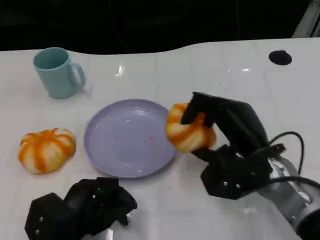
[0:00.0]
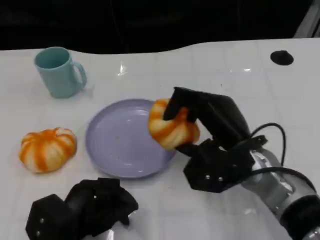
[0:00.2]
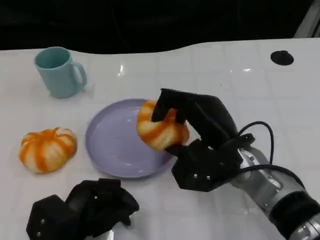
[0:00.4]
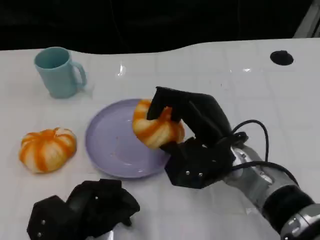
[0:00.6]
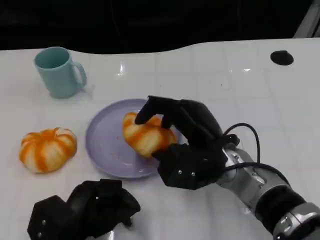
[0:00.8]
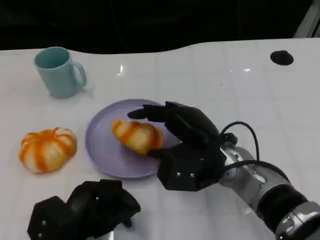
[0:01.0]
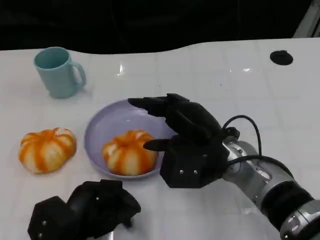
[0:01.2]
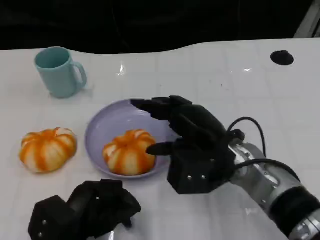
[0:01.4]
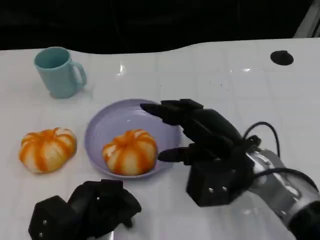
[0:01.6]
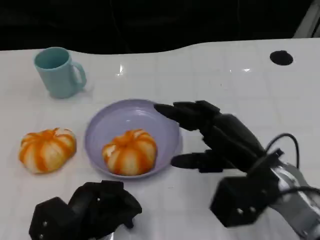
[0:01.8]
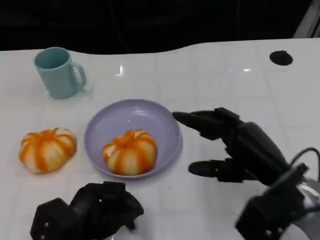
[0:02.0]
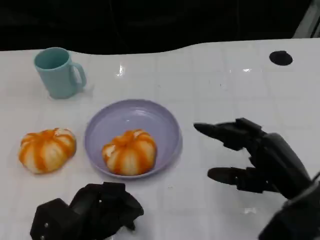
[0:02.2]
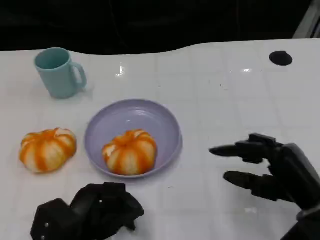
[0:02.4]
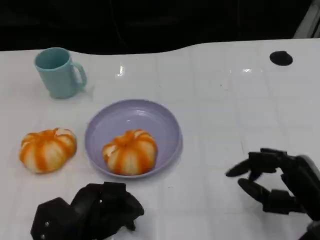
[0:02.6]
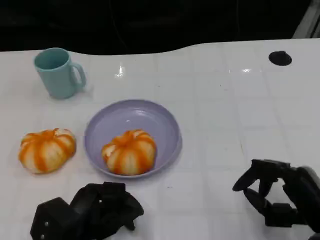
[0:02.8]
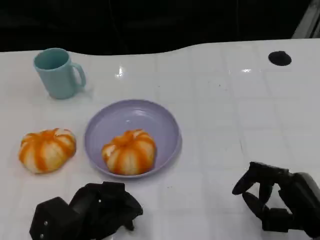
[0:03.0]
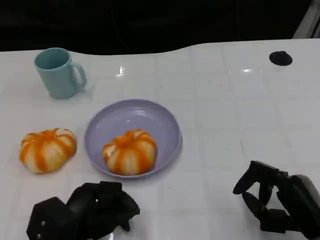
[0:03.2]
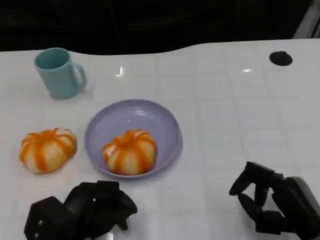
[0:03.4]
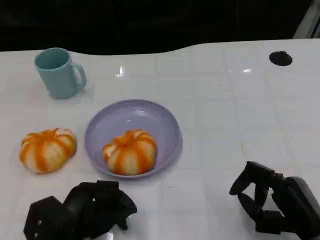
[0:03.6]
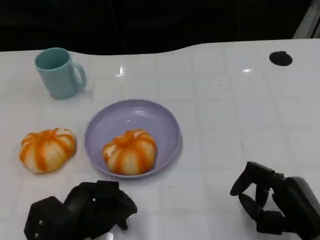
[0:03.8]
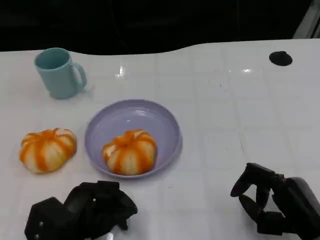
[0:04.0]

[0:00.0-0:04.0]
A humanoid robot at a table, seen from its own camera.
Task of the whole recording: Grasp the bread from the table and place it into the plate.
0:01.4 to 0:02.6: The right hand goes some 15 cm to the right and backward.
0:02.6 to 0:04.0: There are only small adjustments of the hands.

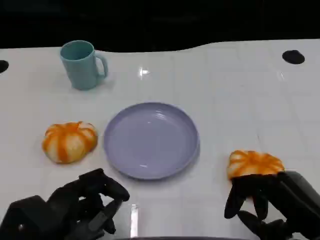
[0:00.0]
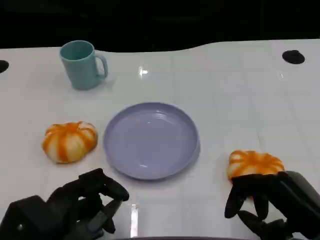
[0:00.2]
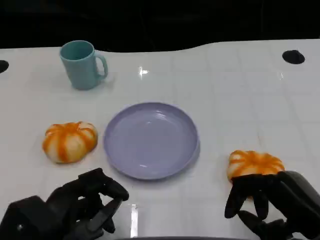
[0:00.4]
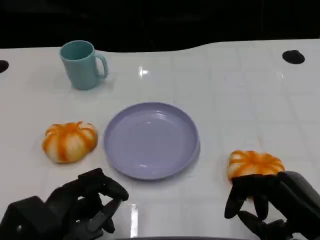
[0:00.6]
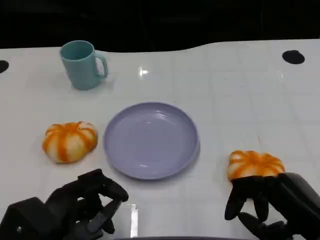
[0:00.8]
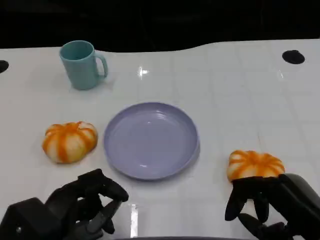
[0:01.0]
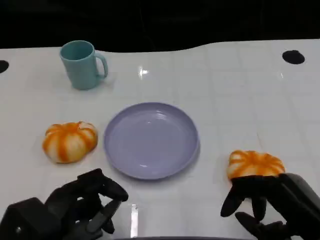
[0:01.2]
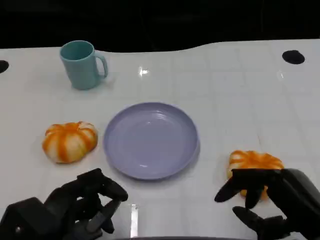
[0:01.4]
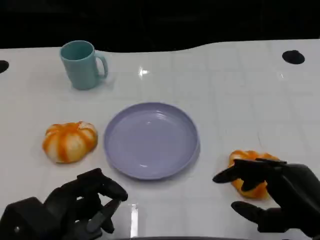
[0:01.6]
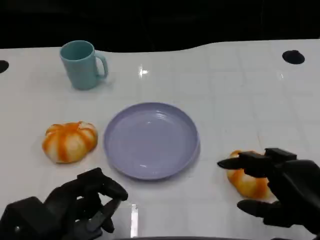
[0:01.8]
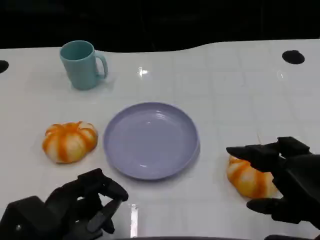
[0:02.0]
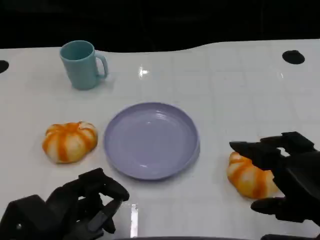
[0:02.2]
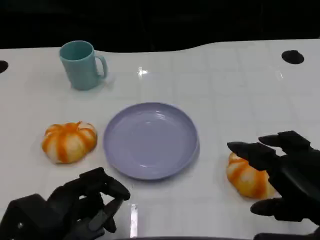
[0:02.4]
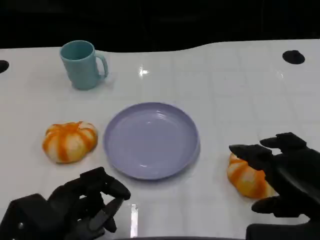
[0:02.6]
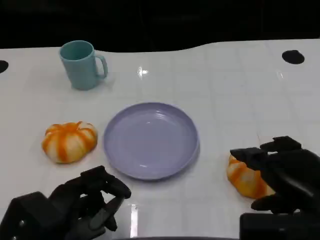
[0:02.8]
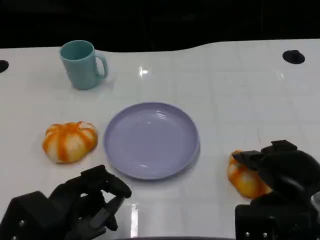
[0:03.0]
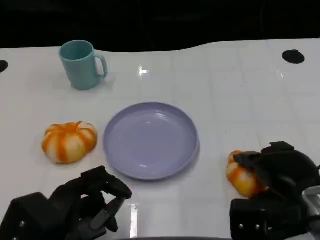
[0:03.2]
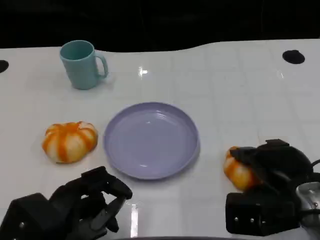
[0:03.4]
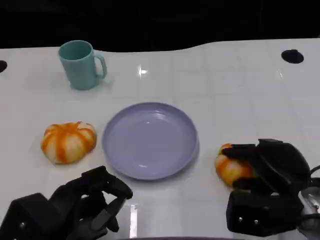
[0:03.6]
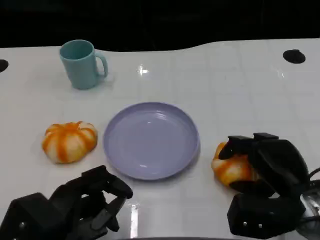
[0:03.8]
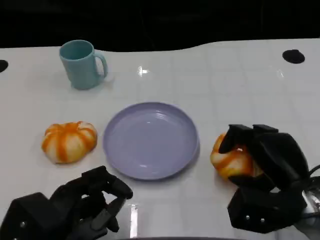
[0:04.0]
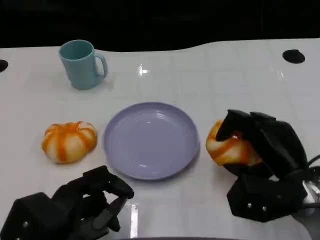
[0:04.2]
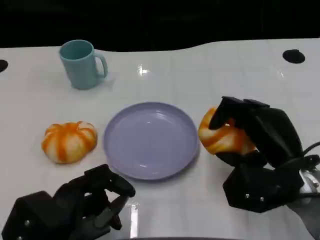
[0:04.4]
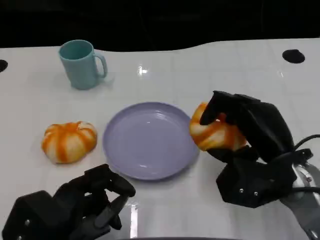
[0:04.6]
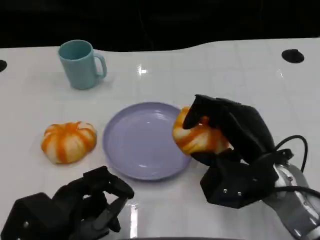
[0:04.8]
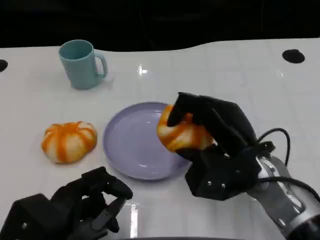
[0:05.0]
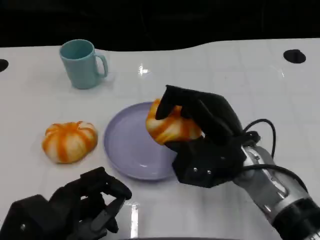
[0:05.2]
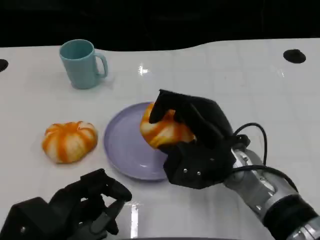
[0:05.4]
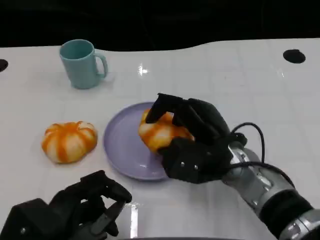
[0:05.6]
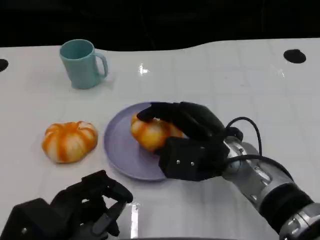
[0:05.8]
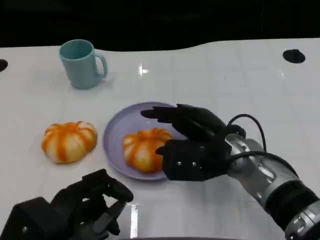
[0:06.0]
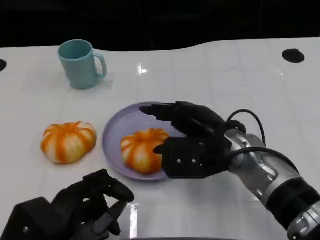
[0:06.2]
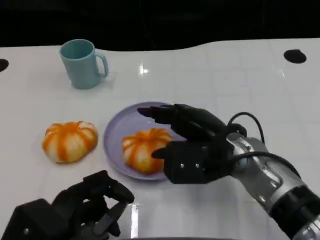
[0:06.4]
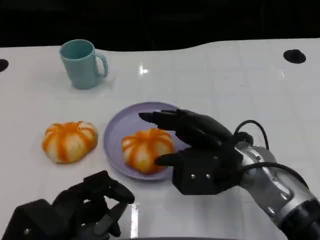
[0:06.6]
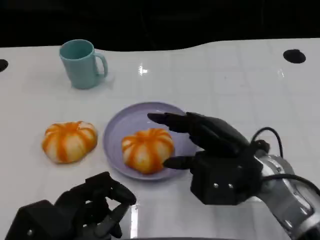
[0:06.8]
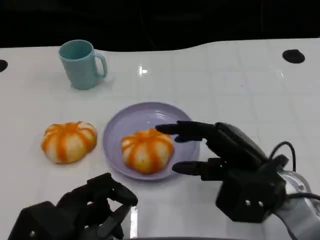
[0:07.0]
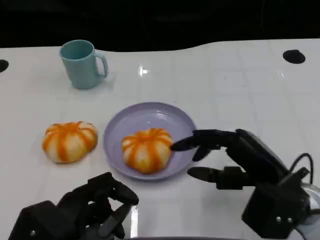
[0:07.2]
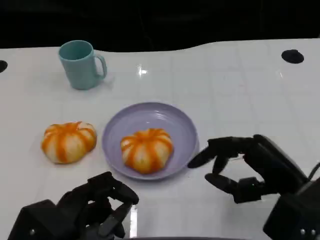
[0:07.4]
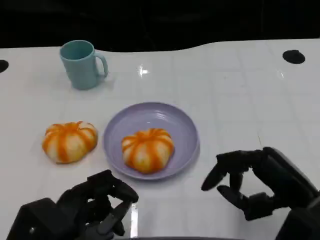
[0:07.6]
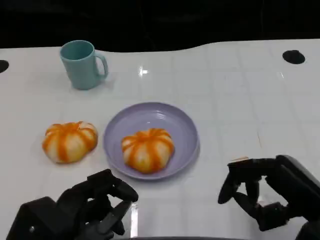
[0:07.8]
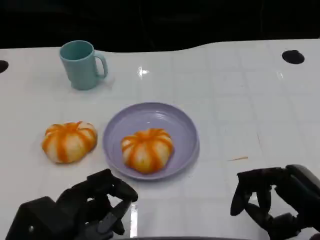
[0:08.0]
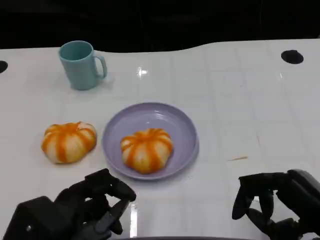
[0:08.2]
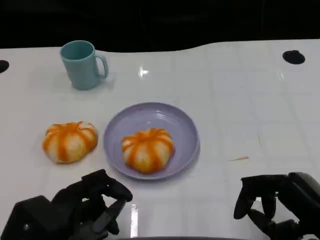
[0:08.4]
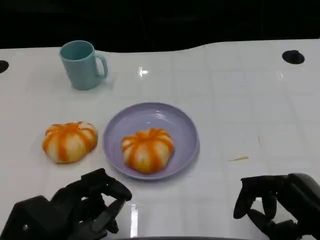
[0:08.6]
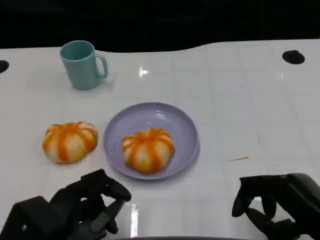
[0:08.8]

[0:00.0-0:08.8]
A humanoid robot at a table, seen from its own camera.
Task of the whole recording: Grasp the bread from the table and place it into the plate.
0:00.0 to 0:01.4: The hands stay close to where they were, moving slightly.
0:01.4 to 0:03.0: The right hand goes approximately 5 cm forward.
0:03.0 to 0:04.4: The right hand changes place by about 5 cm.
0:04.4 to 0:05.8: The right hand travels to the left by approximately 10 cm.
0:05.8 to 0:07.4: The right hand heads to the right and backward, covering approximately 15 cm.
0:07.4 to 0:08.8: The right hand changes place by roughly 5 cm.

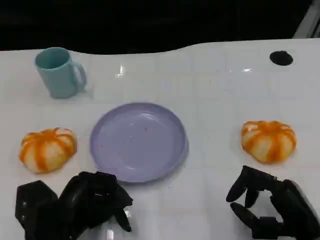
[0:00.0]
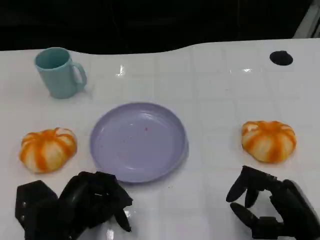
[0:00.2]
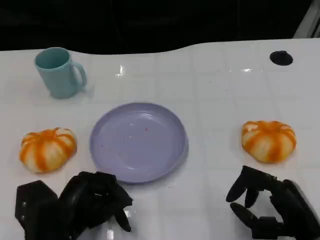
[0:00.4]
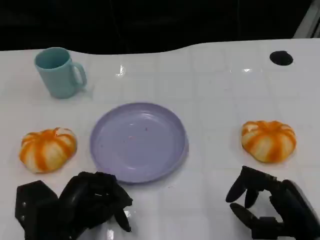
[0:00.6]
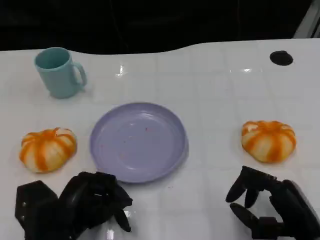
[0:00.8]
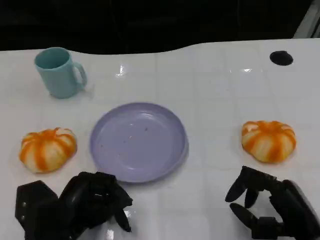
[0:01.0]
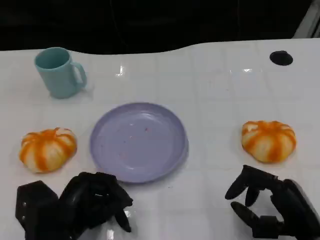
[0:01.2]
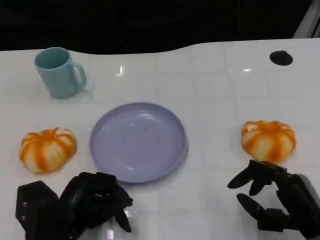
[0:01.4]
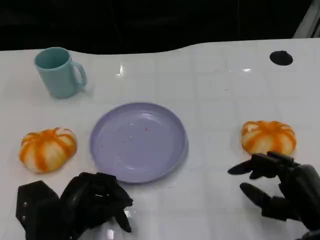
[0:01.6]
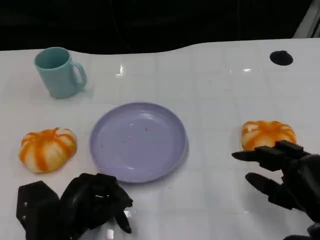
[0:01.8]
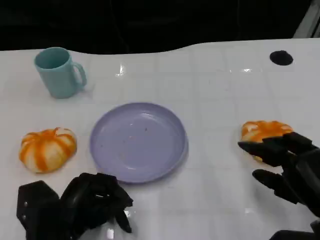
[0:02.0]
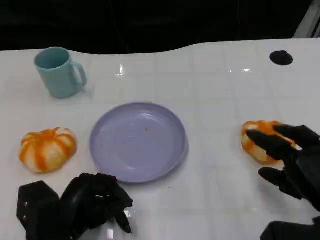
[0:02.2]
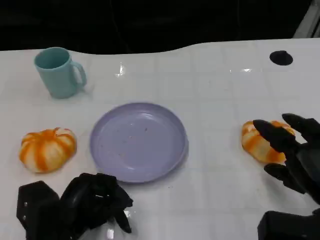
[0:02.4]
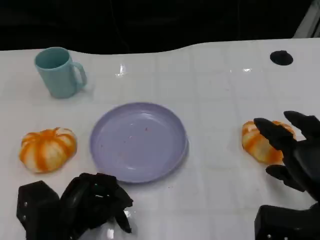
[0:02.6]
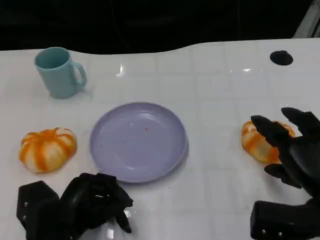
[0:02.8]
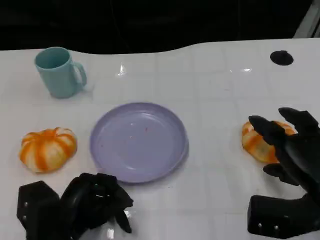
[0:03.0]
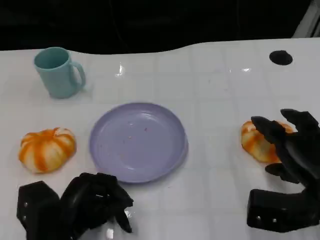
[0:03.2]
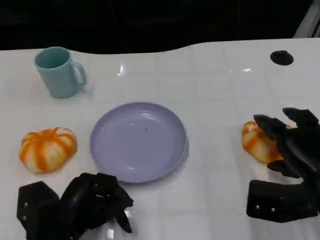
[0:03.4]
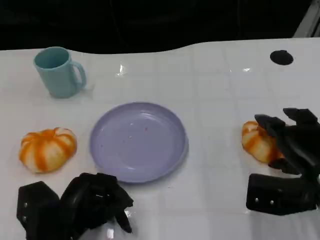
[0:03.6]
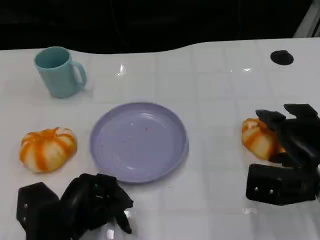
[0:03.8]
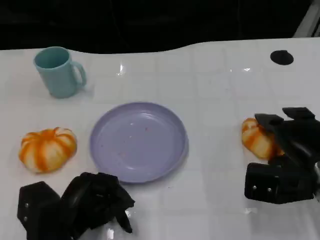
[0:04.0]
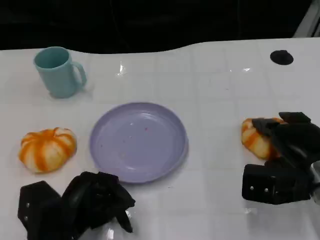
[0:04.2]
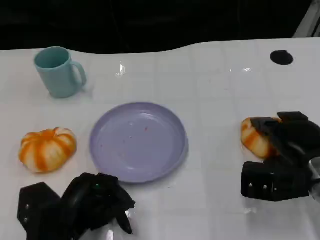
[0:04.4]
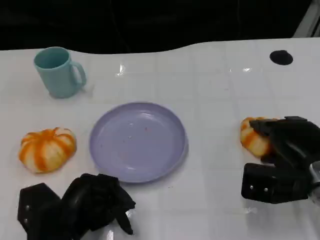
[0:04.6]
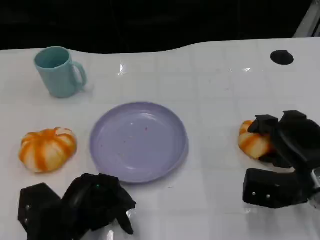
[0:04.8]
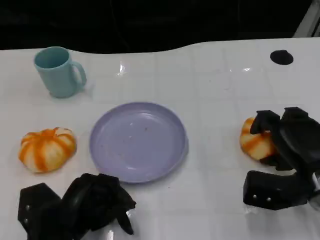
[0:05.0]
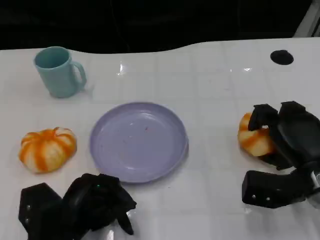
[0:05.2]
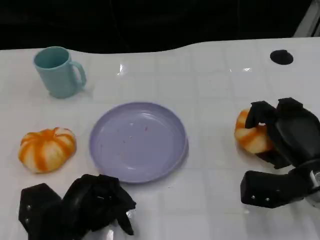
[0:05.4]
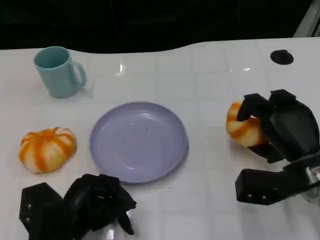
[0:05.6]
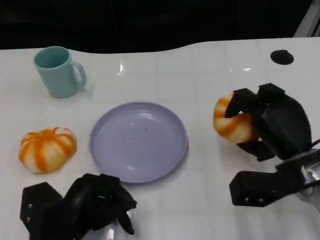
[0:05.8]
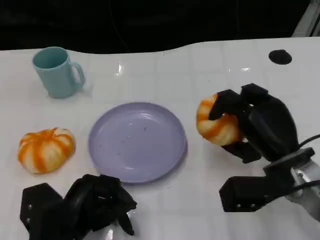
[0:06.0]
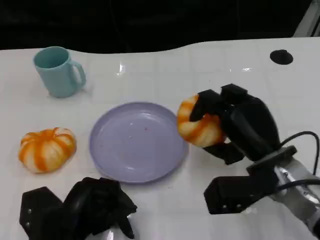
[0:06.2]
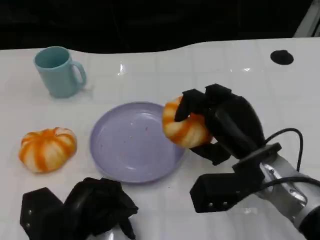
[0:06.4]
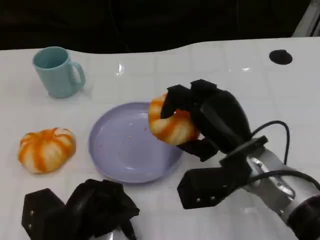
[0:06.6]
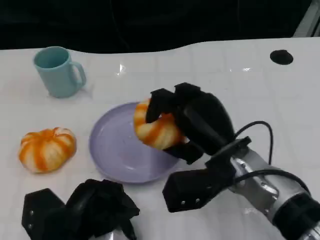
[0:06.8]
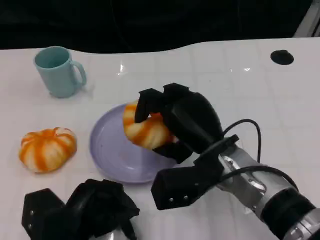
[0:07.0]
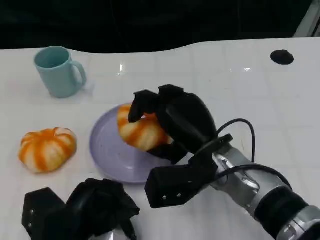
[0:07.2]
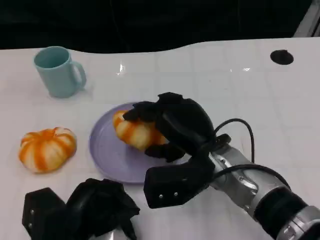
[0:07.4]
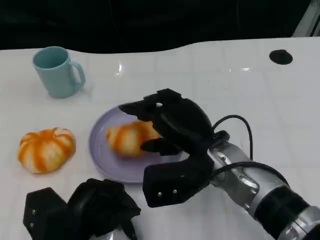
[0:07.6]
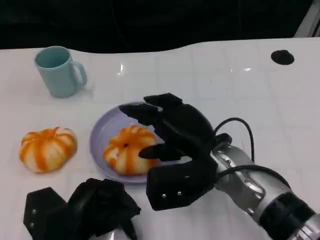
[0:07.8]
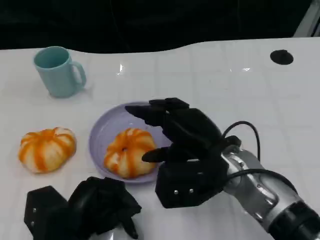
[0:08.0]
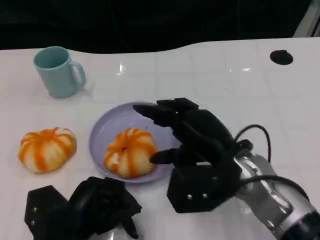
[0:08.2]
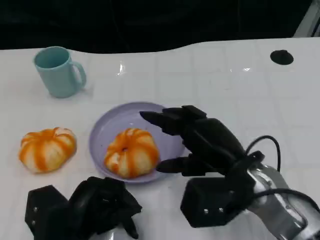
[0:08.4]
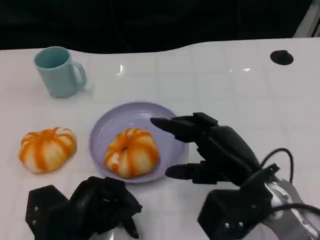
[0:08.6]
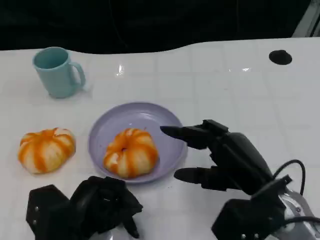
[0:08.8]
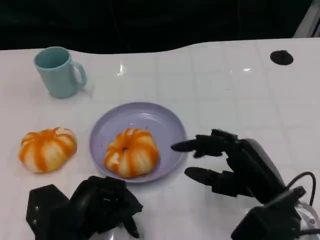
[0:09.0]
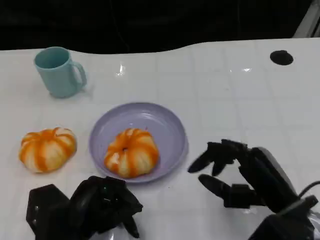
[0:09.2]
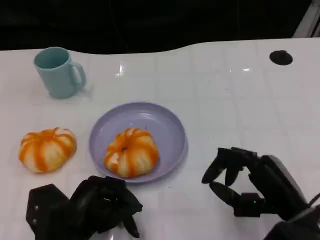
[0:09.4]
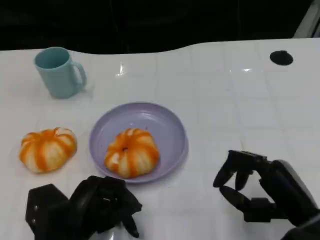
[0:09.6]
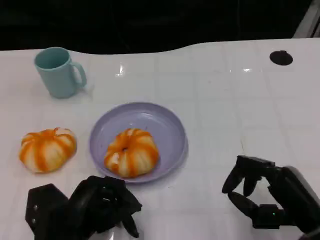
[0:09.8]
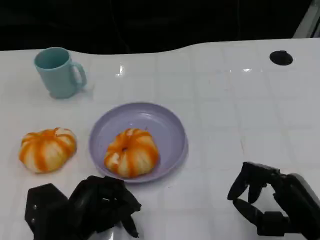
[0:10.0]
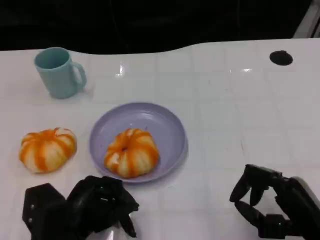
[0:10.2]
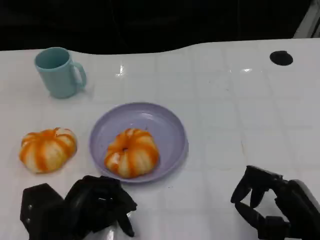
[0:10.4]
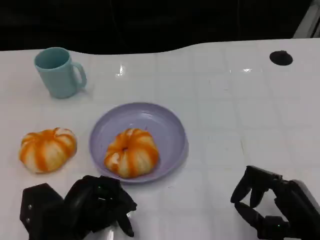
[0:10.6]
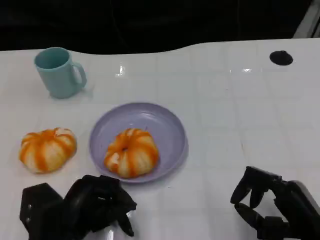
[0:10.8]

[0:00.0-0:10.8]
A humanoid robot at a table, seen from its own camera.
Task of the whole recording: Grasp the bread from the table and place it into the plate.
0:00.0 to 0:01.6: There are only small adjustments of the hands.
0:03.0 to 0:04.6: The right hand moves forward, approximately 5 cm.
0:04.6 to 0:06.2: The right hand goes some 10 cm to the left.
0:06.2 to 0:07.8: The right hand is displaced to the left by approximately 5 cm.
0:07.8 to 0:09.2: The right hand goes roughly 15 cm to the right and backward.
0:09.2 to 0:10.8: The right hand shifts by some 5 cm.
